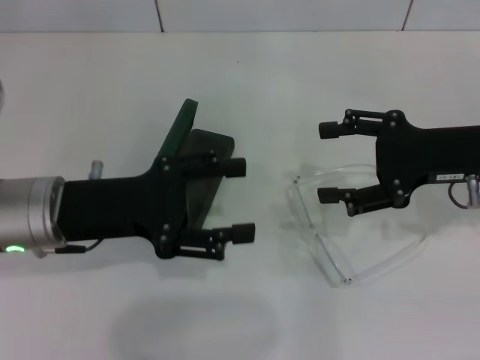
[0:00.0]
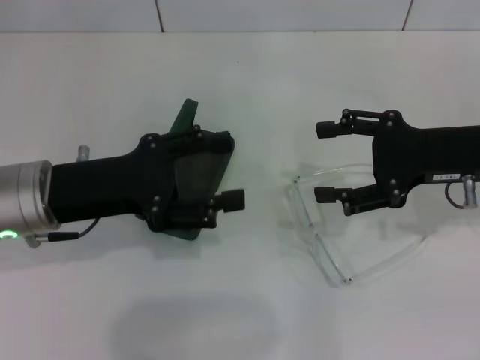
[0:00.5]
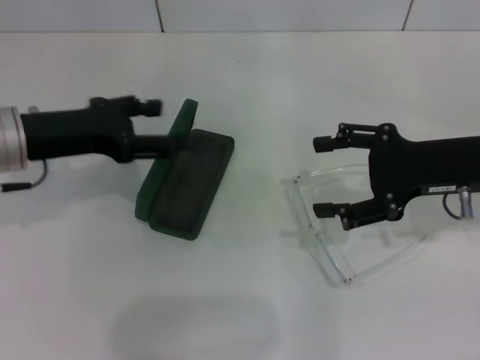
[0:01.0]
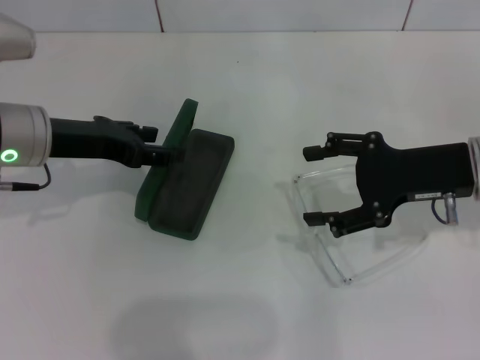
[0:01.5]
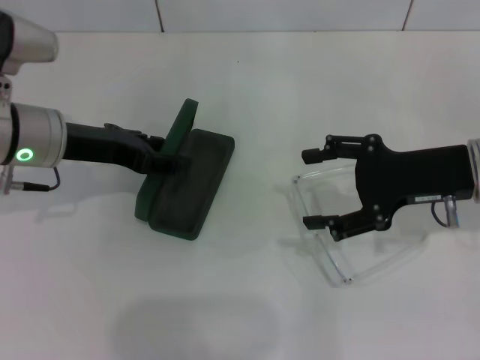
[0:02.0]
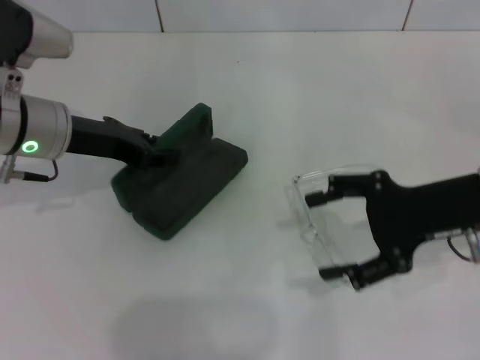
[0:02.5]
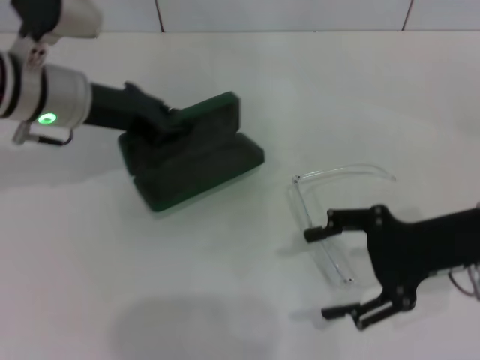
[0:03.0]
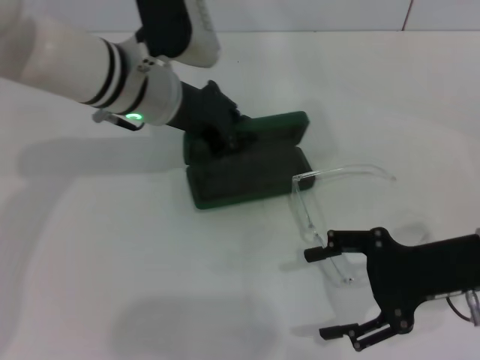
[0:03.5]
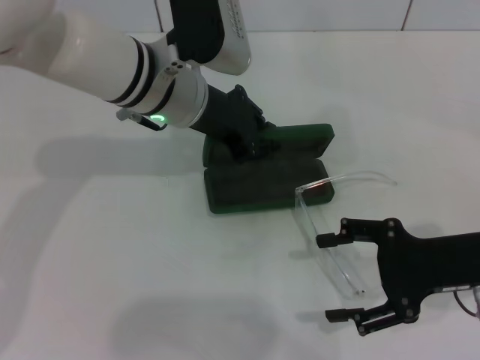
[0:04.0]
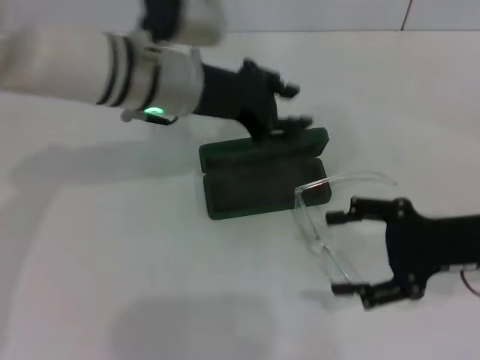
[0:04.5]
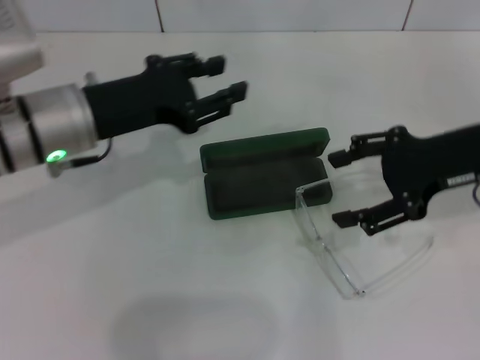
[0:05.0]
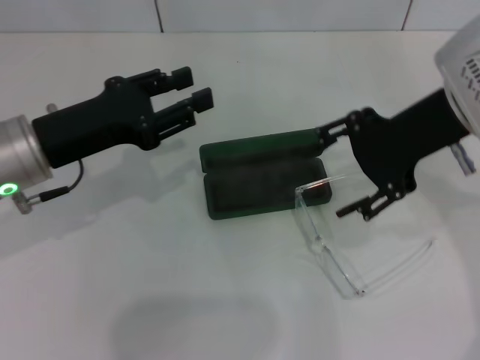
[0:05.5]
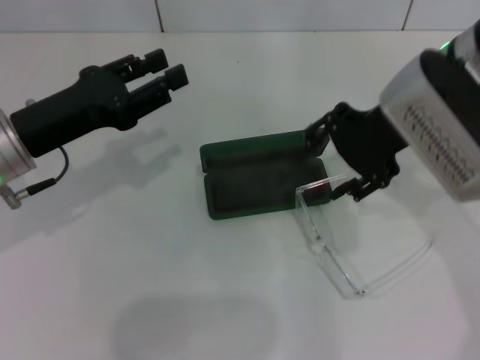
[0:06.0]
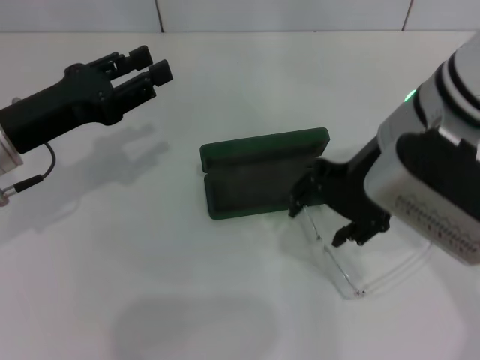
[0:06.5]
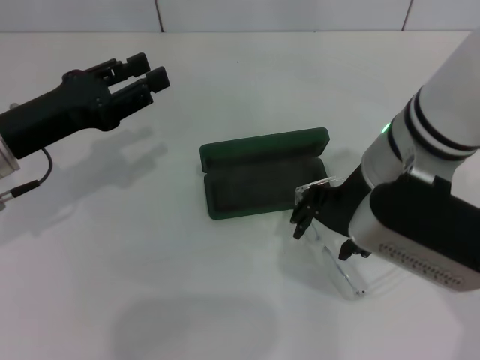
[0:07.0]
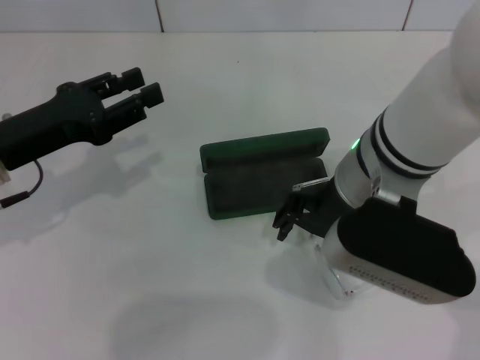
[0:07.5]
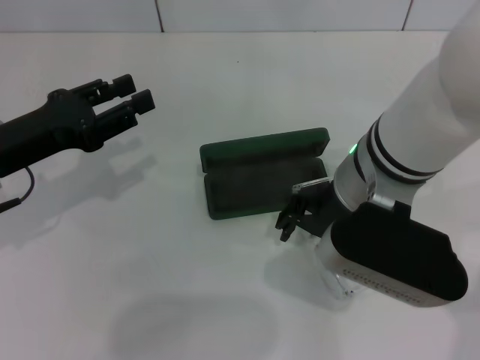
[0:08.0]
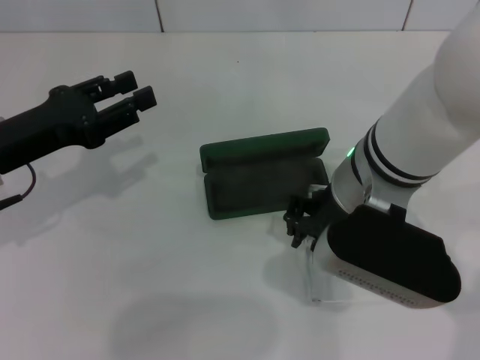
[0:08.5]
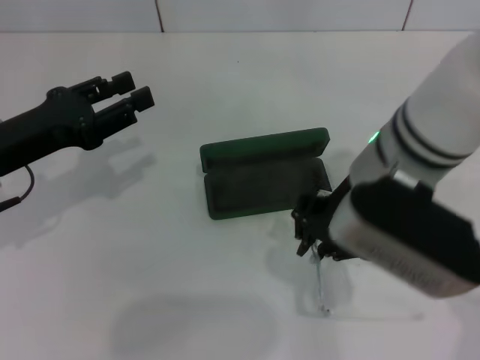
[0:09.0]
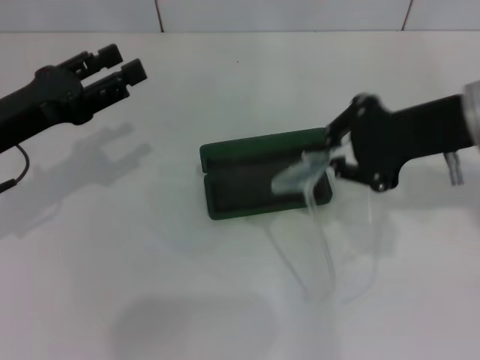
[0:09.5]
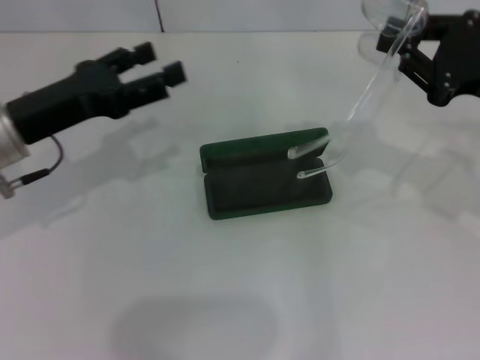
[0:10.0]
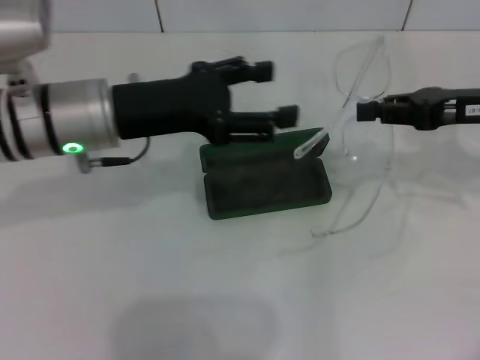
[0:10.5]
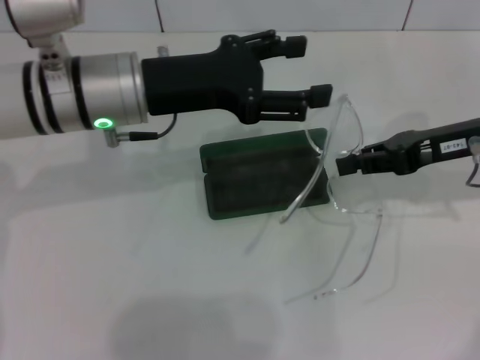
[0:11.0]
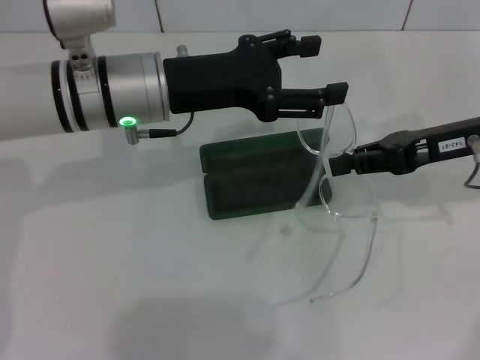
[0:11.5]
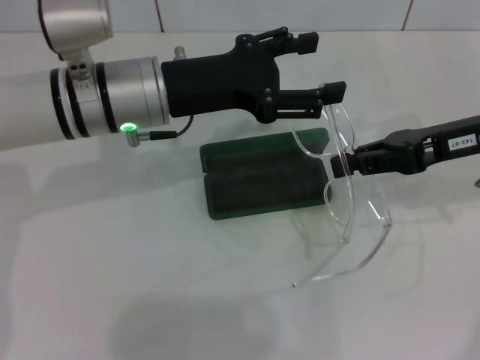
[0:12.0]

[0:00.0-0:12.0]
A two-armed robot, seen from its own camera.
Step, 0:00.0 to 0:02.0: Grab the glasses case with your left hand.
Step, 0:02.5 to 0:04.0: Place the glasses case in the center of the table with your left hand.
Step, 0:04.5 to 0:09.0: Grab the eyeglass frame with your right hand.
0:00.0 to 0:02.0: The left gripper is displaced forward by approximately 10 cm.
0:02.0 to 0:04.0: The right gripper shifts some 5 cm backward. Meanwhile the left gripper is displaced to the right by approximately 15 cm, and closes up.
0:04.0 to 0:06.0: The left gripper moves to the left and backward, some 20 cm, and opens up, while the right gripper travels upward, to the left and forward by approximately 20 cm.
0:06.0 to 0:08.0: The right gripper heads to the left and downward, covering approximately 10 cm.
0:08.0 to 0:10.0: The right gripper is displaced to the right by about 20 cm, and closes its fingers, while the left gripper opens up.
0:10.0 to 0:12.0: The left gripper moves to the right, roughly 10 cm.

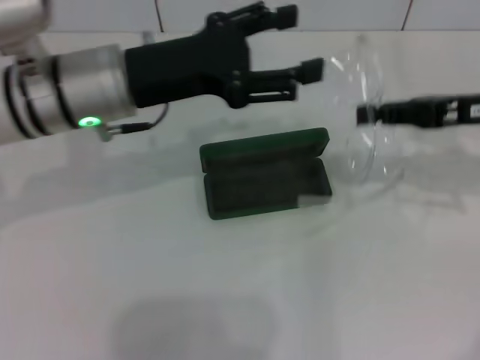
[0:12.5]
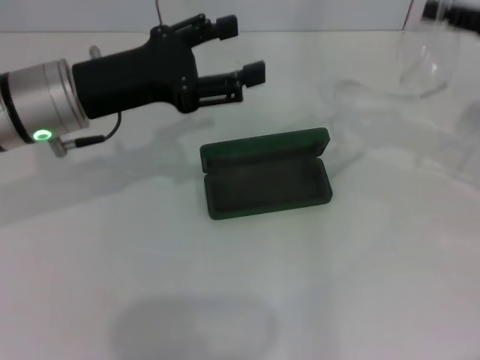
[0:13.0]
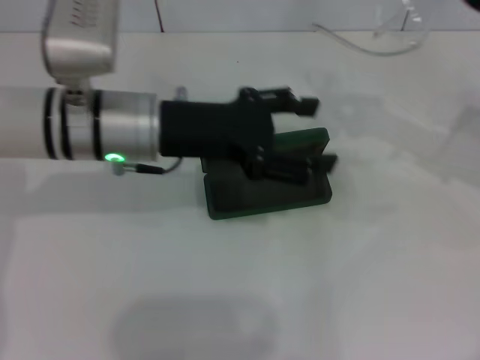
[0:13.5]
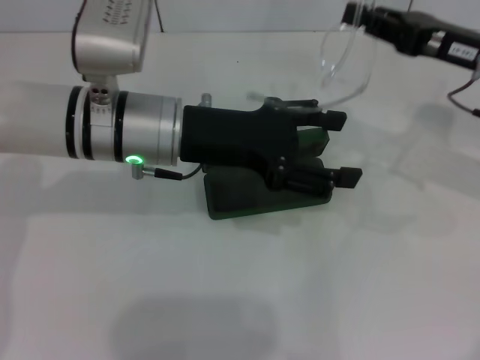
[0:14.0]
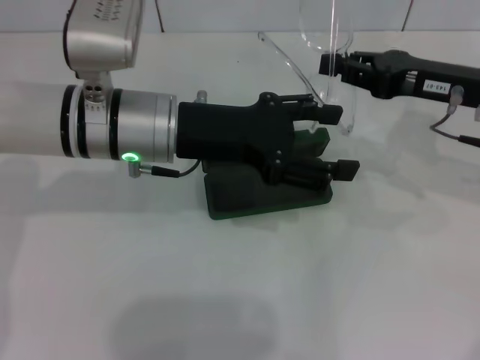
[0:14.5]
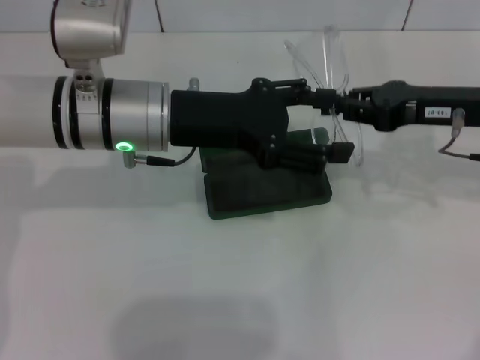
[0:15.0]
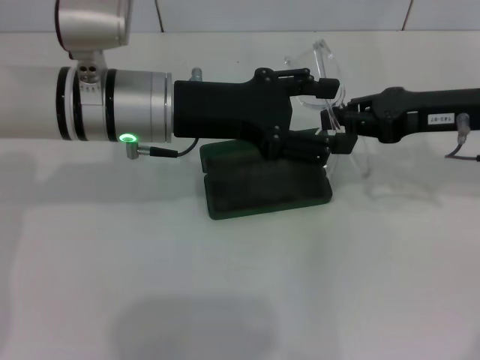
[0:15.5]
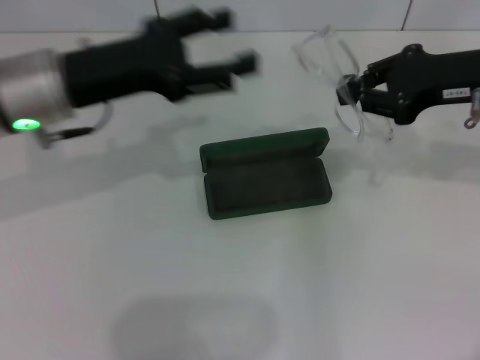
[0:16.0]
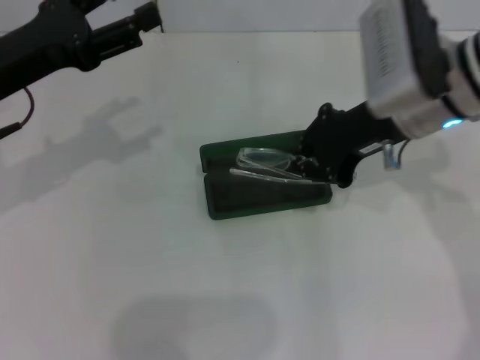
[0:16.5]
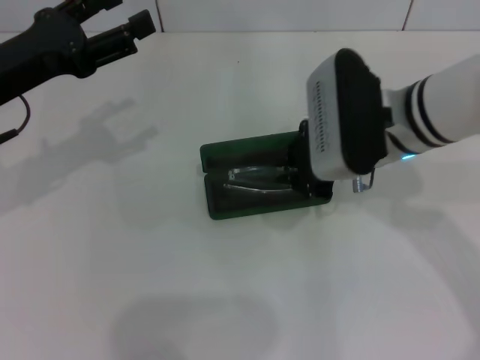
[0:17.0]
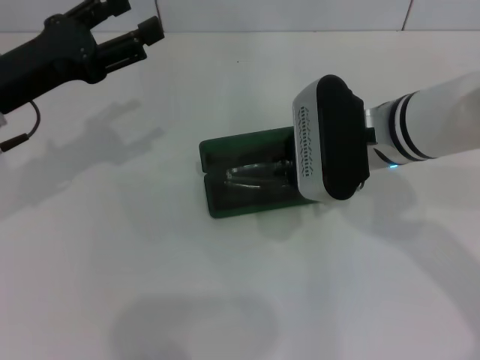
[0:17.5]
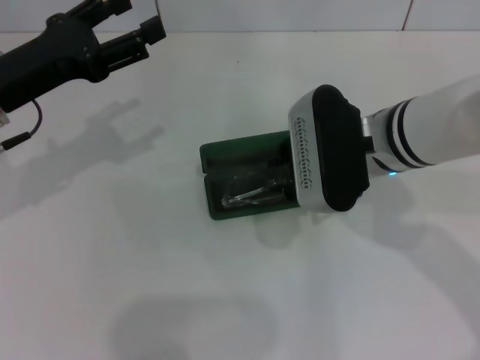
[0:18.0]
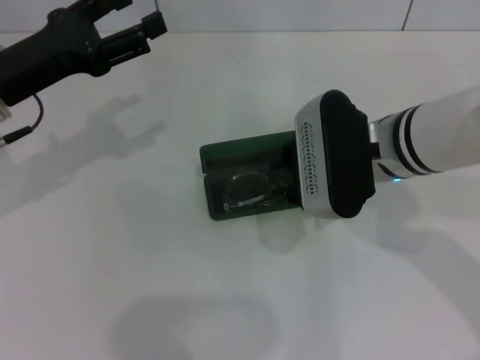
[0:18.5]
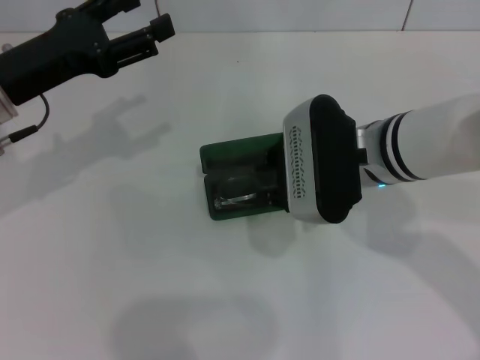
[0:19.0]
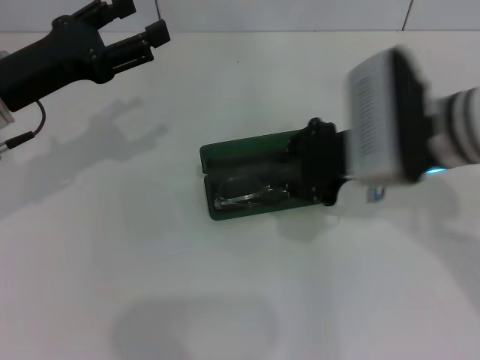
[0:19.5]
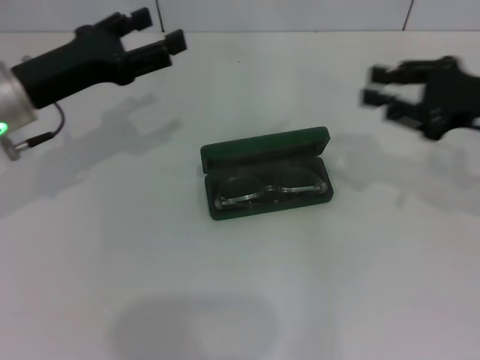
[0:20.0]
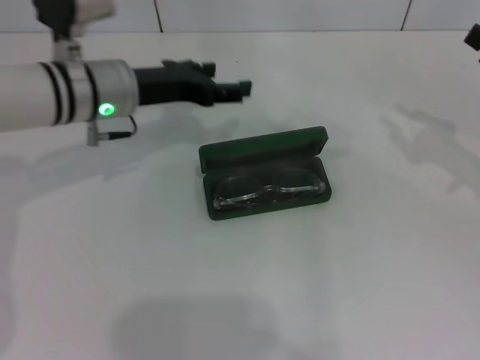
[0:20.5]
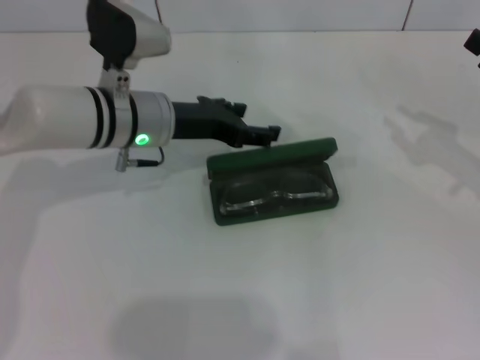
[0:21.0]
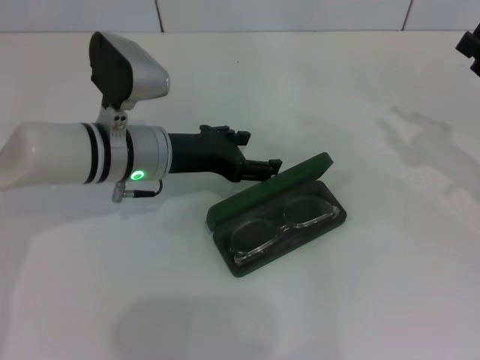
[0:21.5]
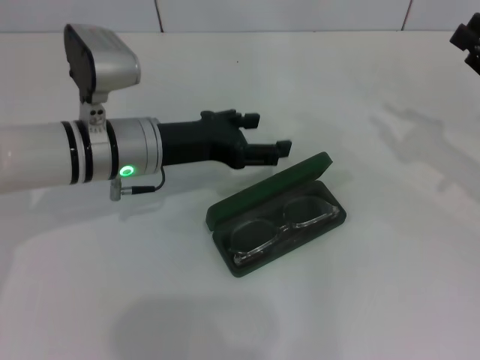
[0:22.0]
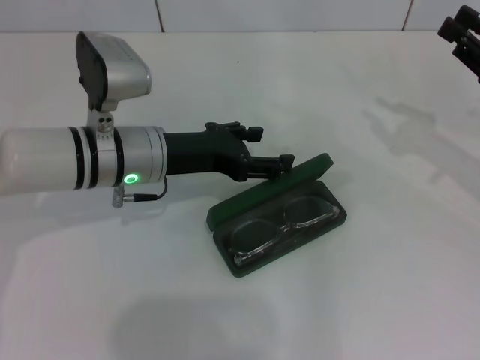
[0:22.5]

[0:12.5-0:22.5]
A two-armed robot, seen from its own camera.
Step, 0:12.5 to 0:15.5: Fold the frame with your left hand.
Step, 0:16.0 to 0:19.5: Put the glasses into the case with your right hand.
0:14.5 to 0:16.5: The left gripper shifts about 15 cm to the left; the right gripper travels to the left by about 10 cm.
0:16.5 to 0:18.5: The right gripper ends up about 5 cm from where it was.
0:18.5 to 0:20.5: The right gripper is displaced to the right by some 25 cm; the left gripper heads to the right and forward, covering about 10 cm.
0:20.5 to 0:22.5: The left gripper travels backward by some 5 cm.

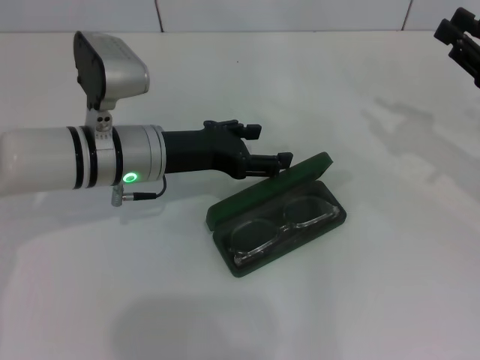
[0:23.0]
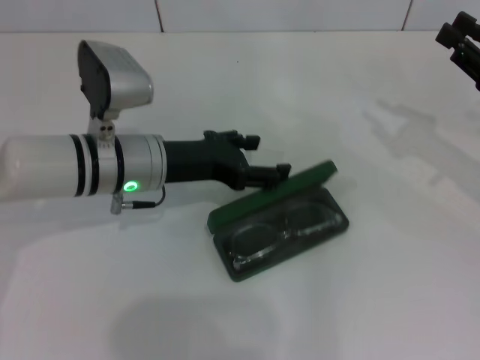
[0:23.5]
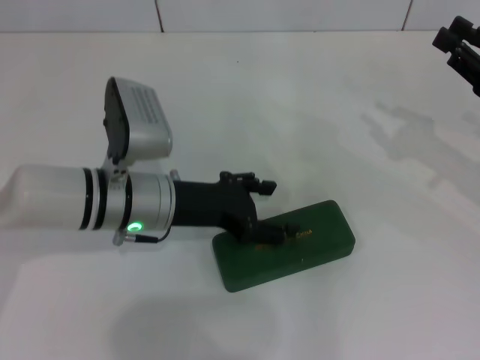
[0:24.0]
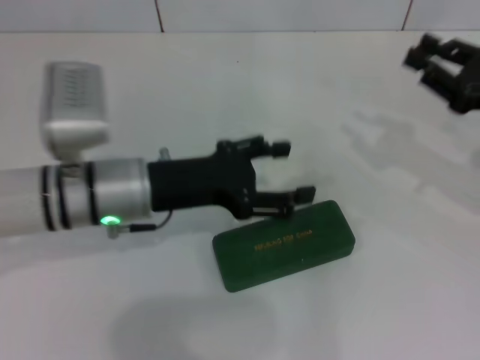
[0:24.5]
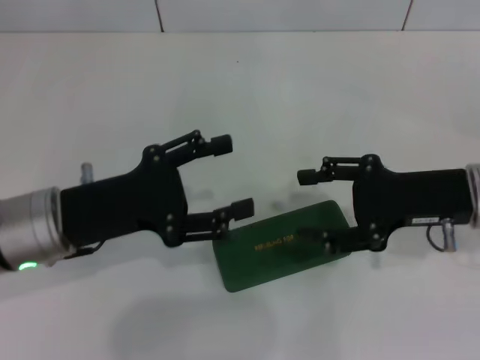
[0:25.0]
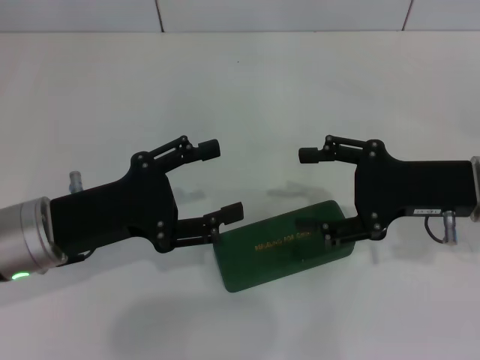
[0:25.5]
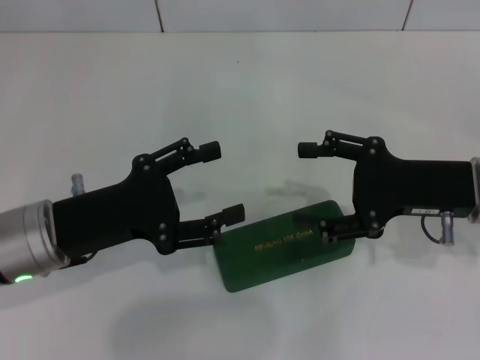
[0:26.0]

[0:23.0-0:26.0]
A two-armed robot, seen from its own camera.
0:24.5 to 0:26.0: The left gripper travels to the left and backward by approximately 10 cm, while the right gripper moves to the left, roughly 10 cm, and opens.
